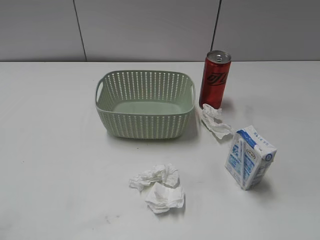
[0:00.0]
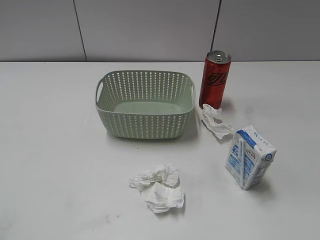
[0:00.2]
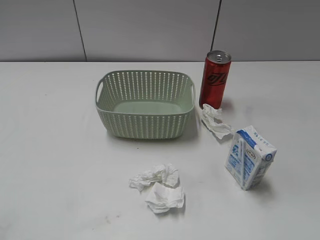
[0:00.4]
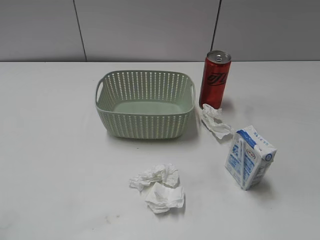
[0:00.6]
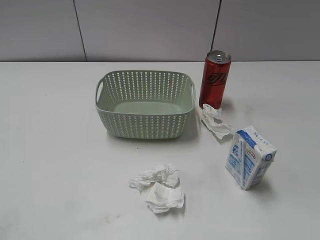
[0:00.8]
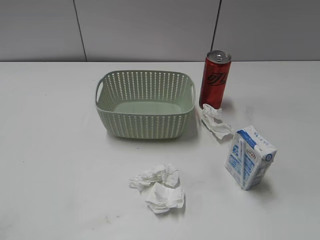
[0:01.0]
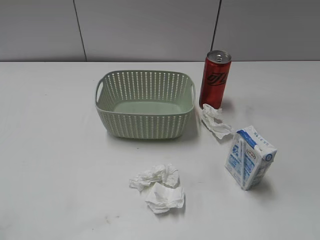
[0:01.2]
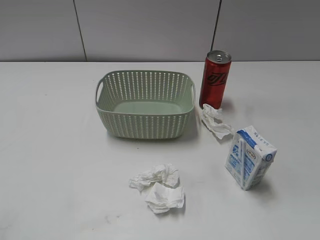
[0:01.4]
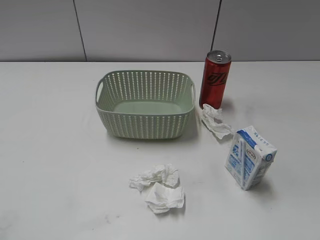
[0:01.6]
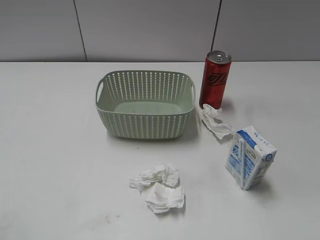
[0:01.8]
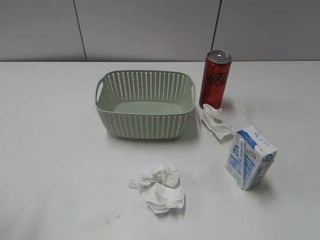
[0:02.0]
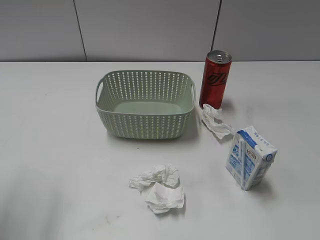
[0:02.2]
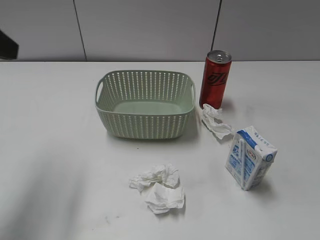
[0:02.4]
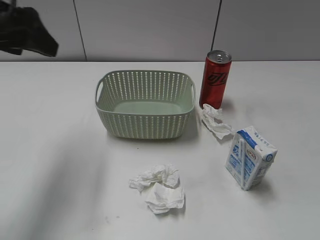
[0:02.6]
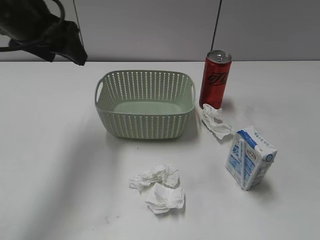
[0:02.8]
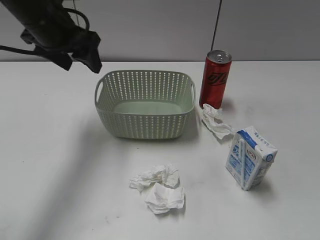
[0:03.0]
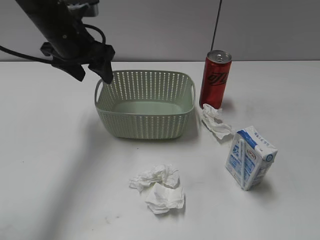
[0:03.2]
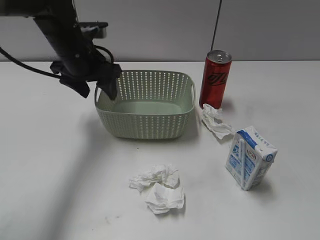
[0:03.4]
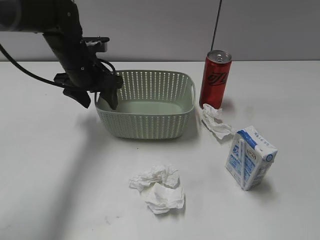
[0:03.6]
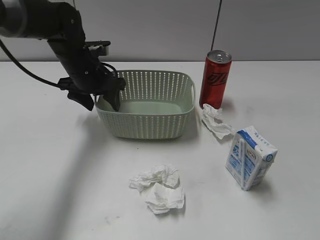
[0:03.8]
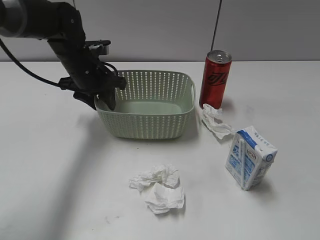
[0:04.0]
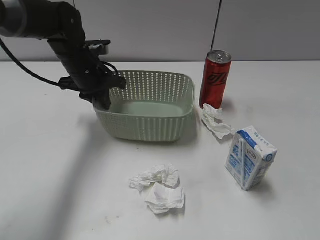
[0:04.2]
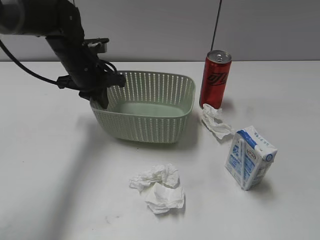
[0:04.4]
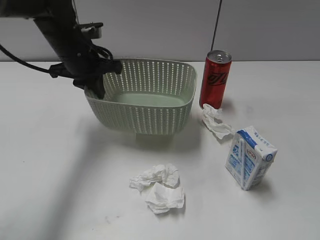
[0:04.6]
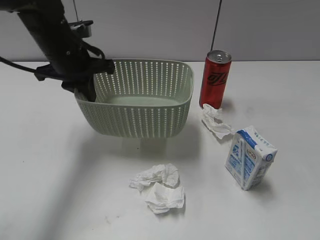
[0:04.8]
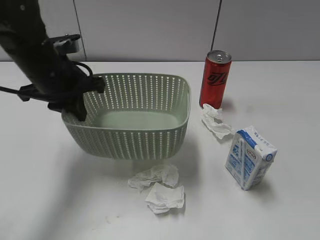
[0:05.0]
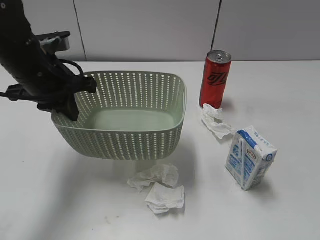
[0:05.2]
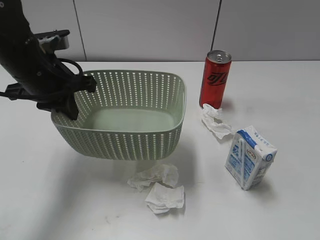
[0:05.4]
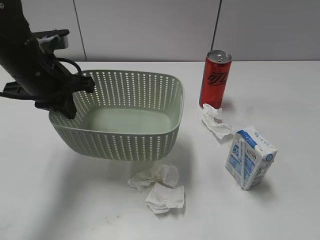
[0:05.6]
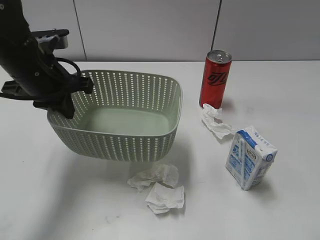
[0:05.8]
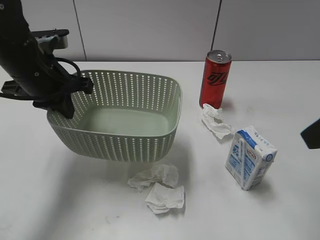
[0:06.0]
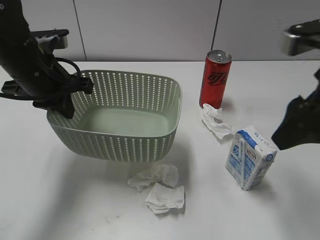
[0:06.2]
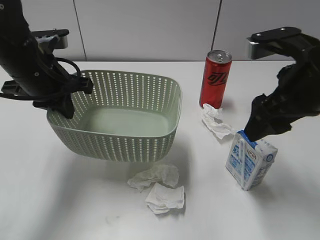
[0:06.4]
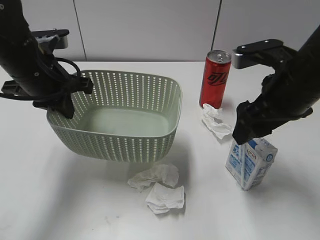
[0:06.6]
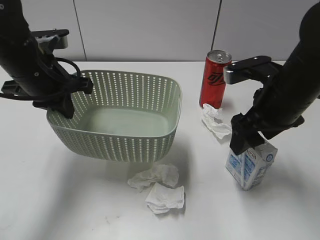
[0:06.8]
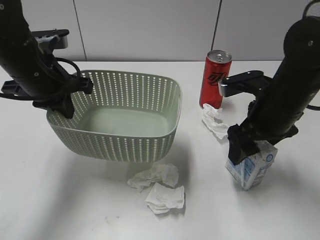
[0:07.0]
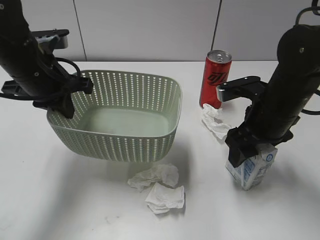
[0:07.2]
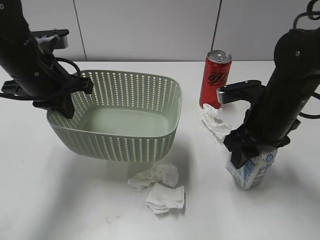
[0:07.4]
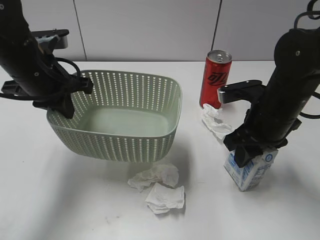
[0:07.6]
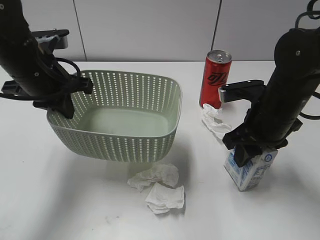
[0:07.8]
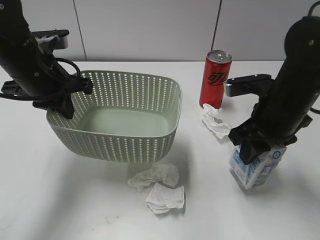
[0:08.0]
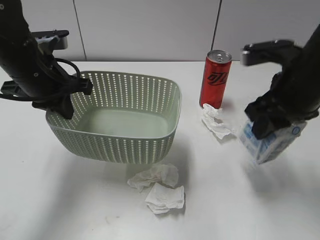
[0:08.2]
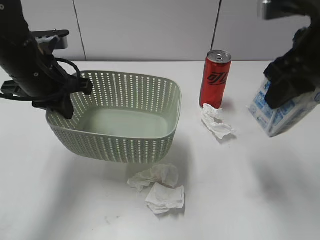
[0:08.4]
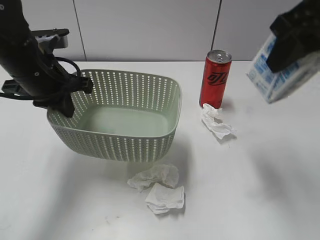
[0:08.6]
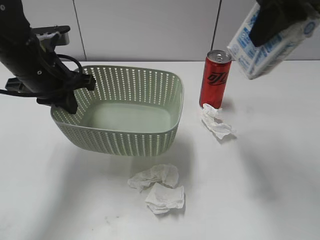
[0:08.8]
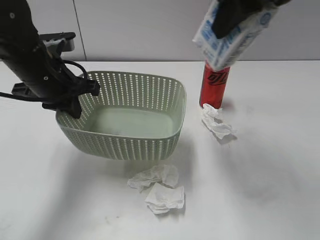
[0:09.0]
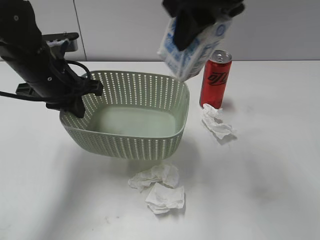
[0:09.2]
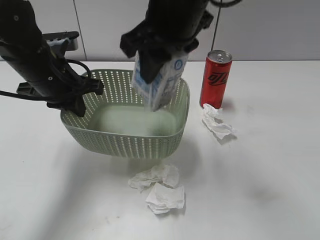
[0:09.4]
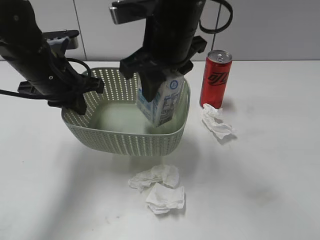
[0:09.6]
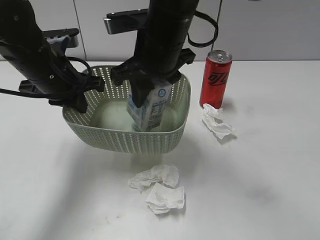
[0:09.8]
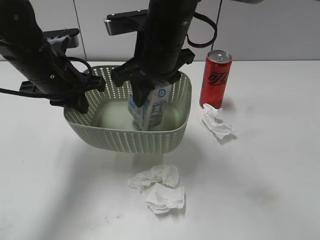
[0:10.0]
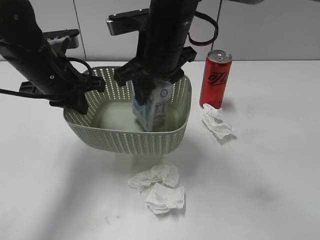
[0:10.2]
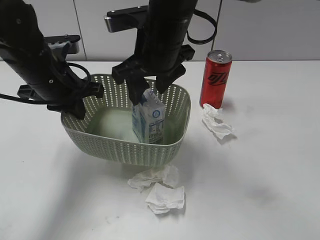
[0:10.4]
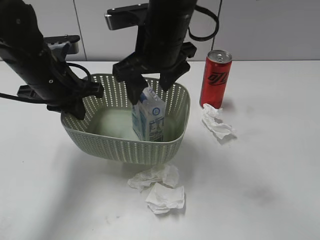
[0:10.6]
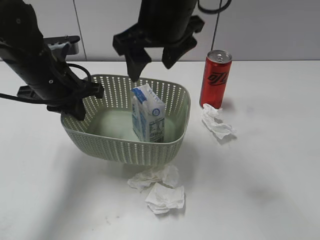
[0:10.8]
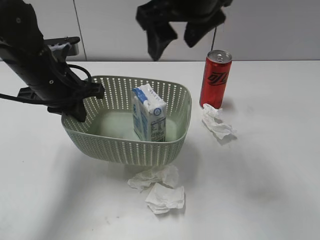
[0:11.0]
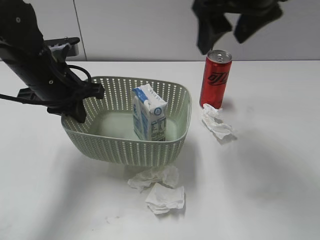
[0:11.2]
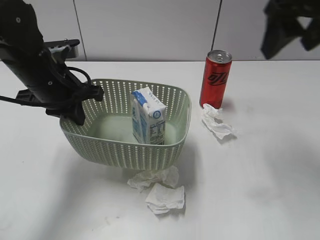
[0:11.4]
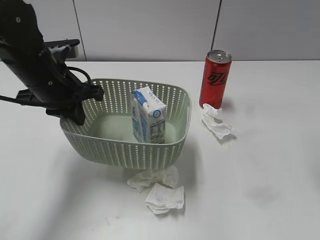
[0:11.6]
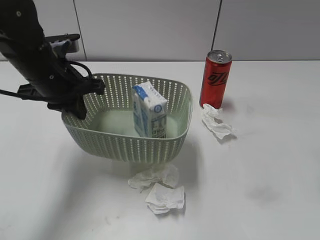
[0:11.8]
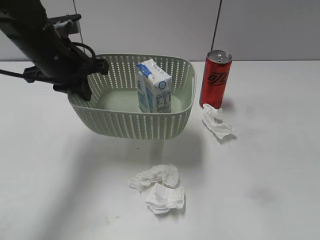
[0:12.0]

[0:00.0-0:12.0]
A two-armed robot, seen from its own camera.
Step, 0:02.4 to 0:04.2: Grasp the basket with left gripper.
Step, 0:04.4 to 0:05.8: Lift the basket with left gripper.
Step, 0:06.0 to 0:07.6: Grasp the milk with right gripper.
Step, 0:07.8 to 0:10.8: Place the milk in the basket with right gripper.
0:01.6 to 0:03.0: The left gripper travels forward and to the right by about 40 cm.
0:03.0 to 0:04.4: The left gripper is displaced downward by about 5 cm, and closes its fingers.
0:04.4 to 0:06.0: The left gripper heads backward, covering some 10 cm; the right gripper moves forward, about 20 cm.
0:06.0 to 0:07.6: The right gripper travels downward and forward by about 15 cm, and closes.
0:07.6 to 0:09.0: The right gripper moves upward, some 20 cm.
0:09.0 to 0:10.4: The right gripper shifts roughly 15 cm downward and to the left, and opens its fingers.
0:10.4 to 0:12.0: The right gripper goes about 35 cm to the right and backward.

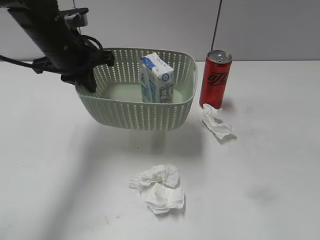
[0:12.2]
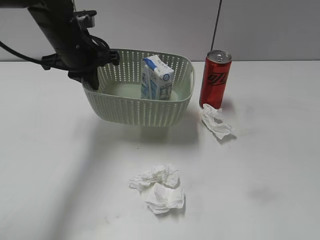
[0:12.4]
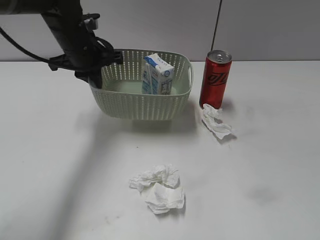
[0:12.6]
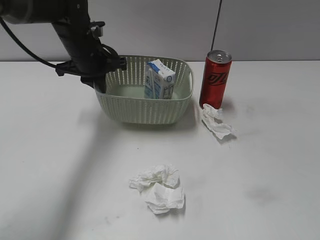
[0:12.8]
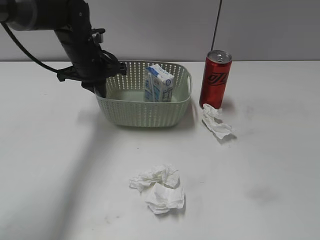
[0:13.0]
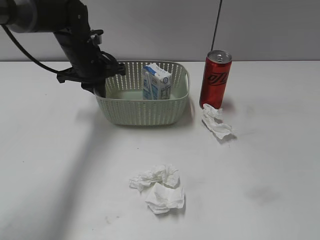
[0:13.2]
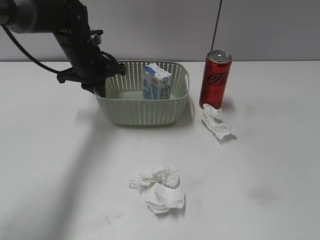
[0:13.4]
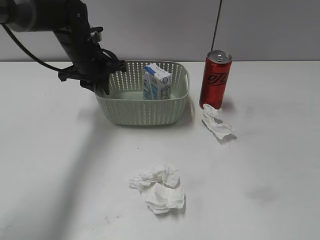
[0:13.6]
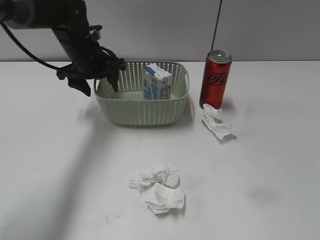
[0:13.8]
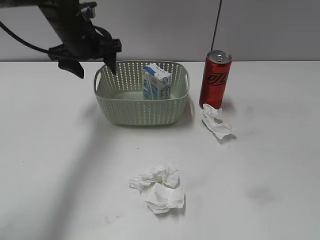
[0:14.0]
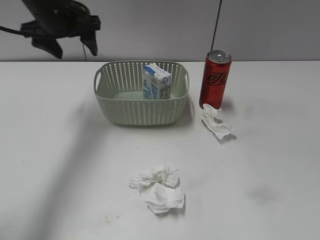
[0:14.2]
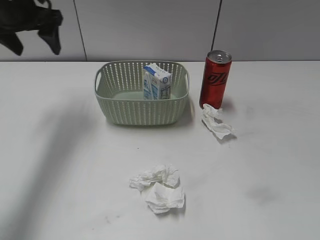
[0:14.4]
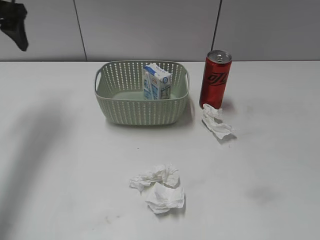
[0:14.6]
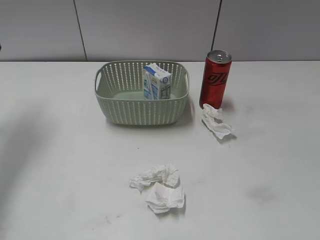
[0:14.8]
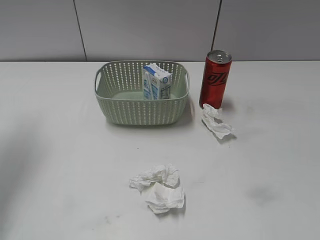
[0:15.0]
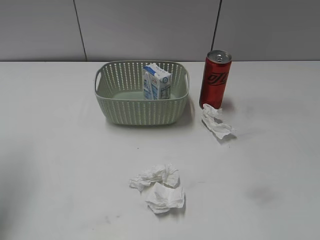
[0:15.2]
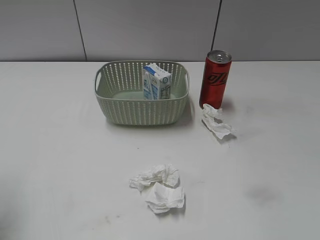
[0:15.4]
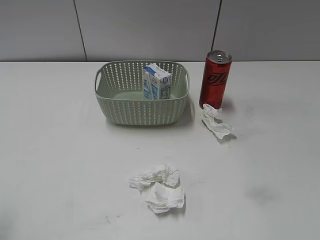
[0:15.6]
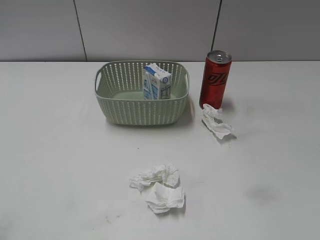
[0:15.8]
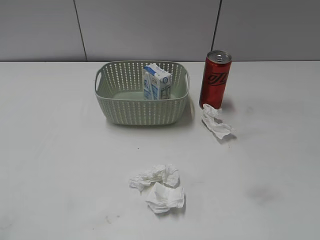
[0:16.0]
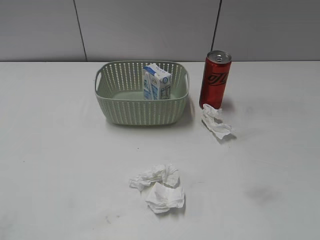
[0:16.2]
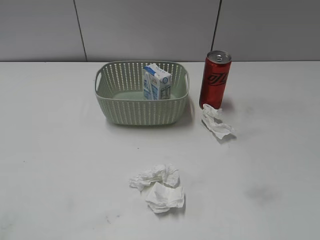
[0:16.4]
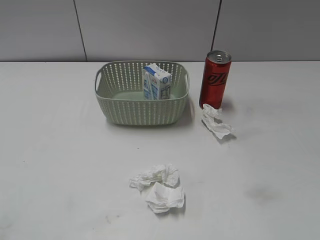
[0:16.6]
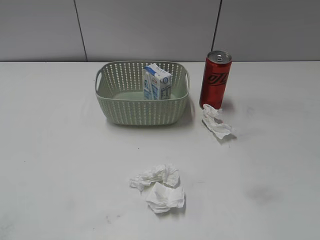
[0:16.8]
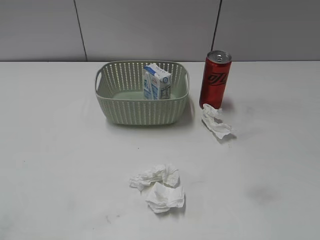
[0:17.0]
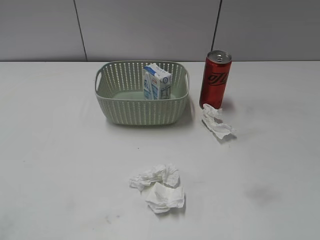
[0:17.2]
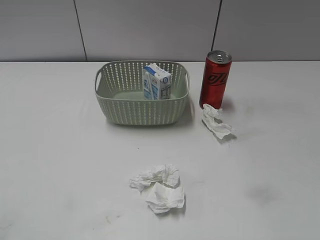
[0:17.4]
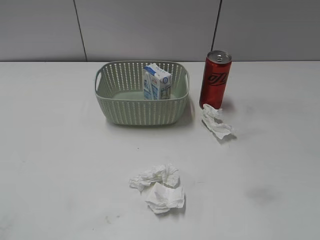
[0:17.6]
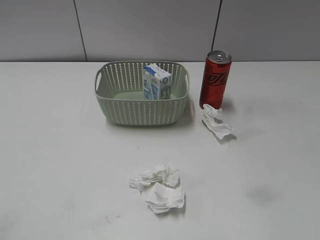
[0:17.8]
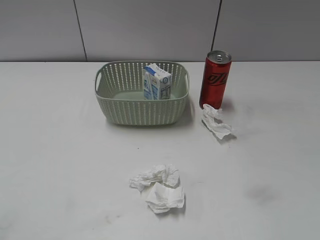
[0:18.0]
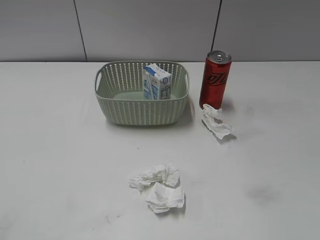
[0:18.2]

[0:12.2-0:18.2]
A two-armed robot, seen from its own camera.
Step, 0:12.2 to 0:13.8: Place the basket on the table with left gripper.
0:12.2 to 0:13.8: The right gripper is displaced backward by about 10 cm. The left gripper shifts approximately 5 cm forward, and opens up.
0:13.8 to 0:15.2: The left gripper travels backward, to the left and upward by some 30 cm.
0:15.2 to 0:16.6: The left gripper moves backward, about 20 cm.

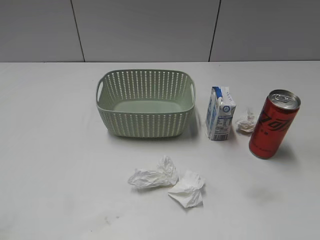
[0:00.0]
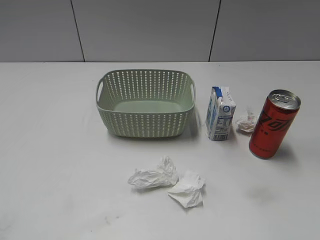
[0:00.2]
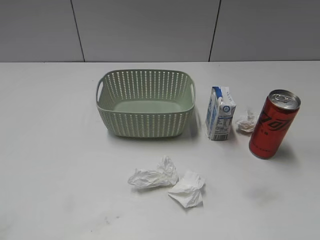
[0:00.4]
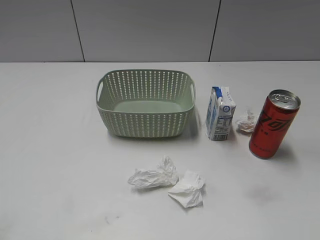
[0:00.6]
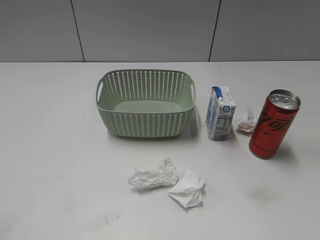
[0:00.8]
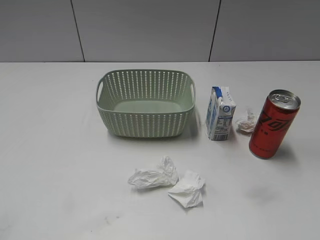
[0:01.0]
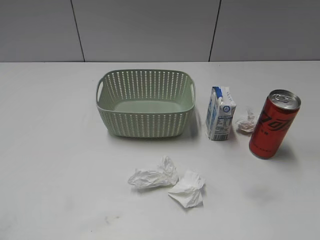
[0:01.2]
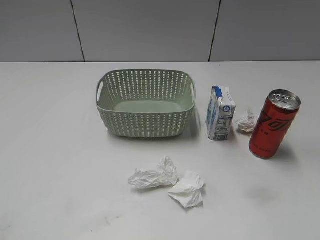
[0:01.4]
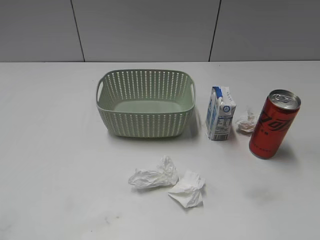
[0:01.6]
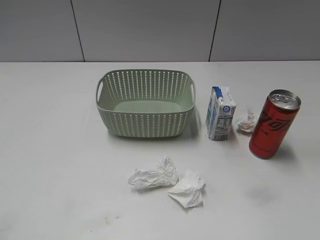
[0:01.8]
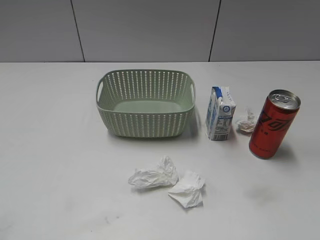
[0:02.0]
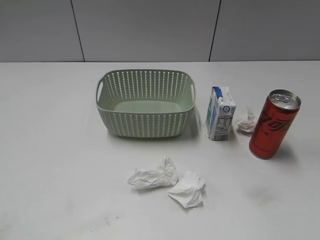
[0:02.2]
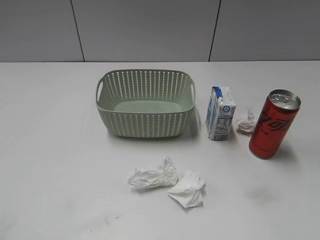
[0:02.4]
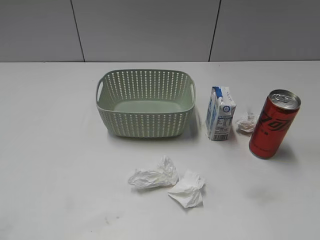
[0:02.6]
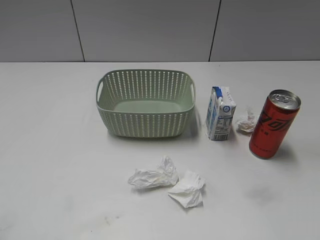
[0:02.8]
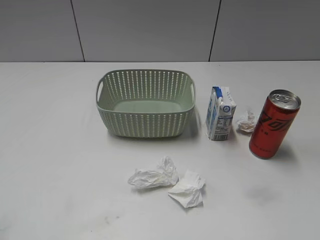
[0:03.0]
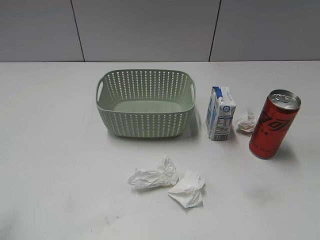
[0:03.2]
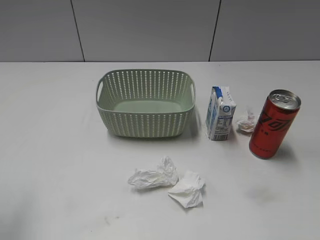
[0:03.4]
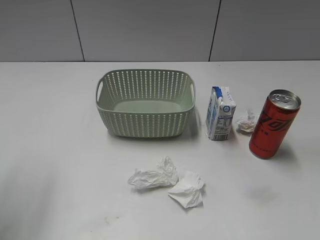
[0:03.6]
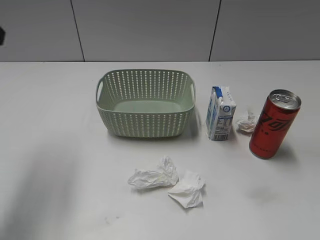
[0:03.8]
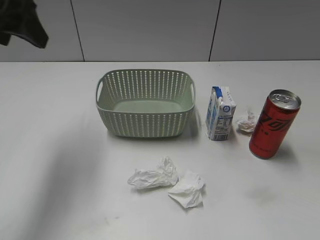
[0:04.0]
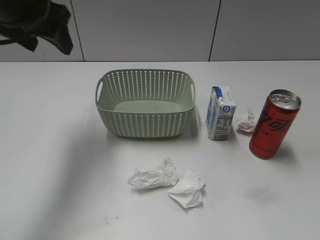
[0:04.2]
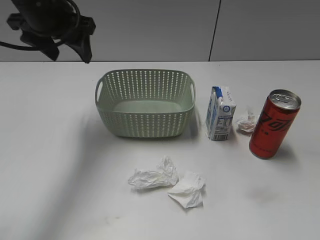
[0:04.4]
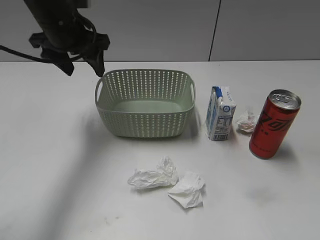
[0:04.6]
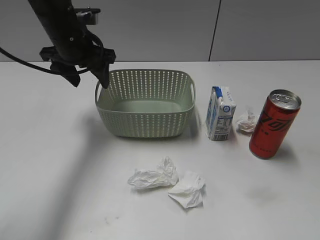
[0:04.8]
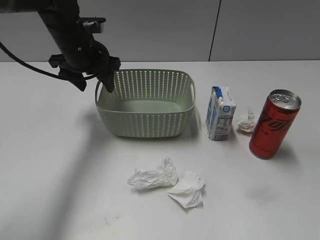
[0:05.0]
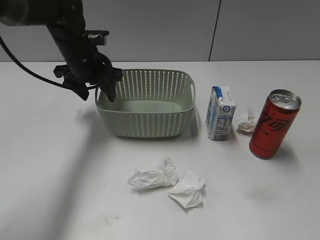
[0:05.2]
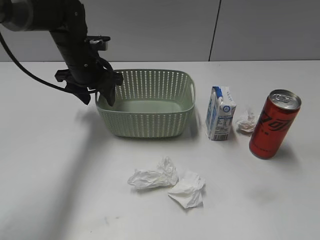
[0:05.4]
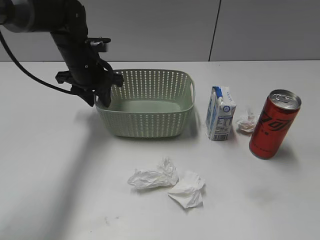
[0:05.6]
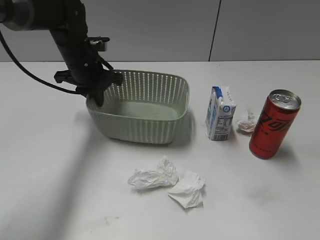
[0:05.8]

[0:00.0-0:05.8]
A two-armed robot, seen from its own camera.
Step, 0:03.8 to 0:05.8: Grasp the basket with left gripper.
0:02.8 to 0:04.4: The left gripper heads forward and to the right, covering approximately 40 cm.
0:04.4 to 0:05.8: The left gripper travels downward by approximately 15 cm, and closes up.
